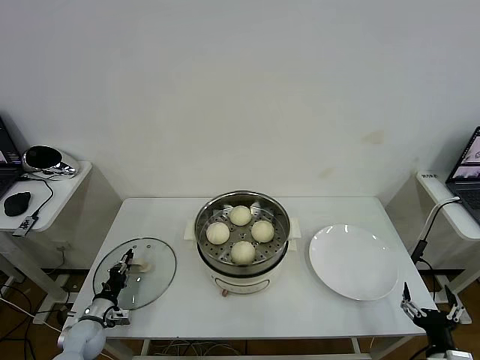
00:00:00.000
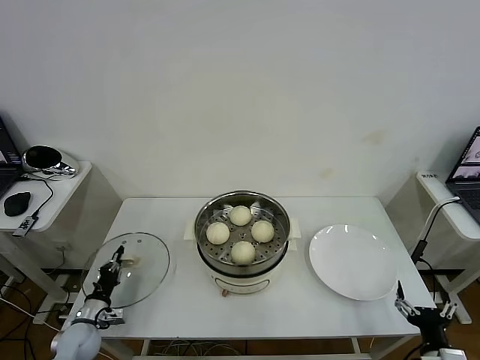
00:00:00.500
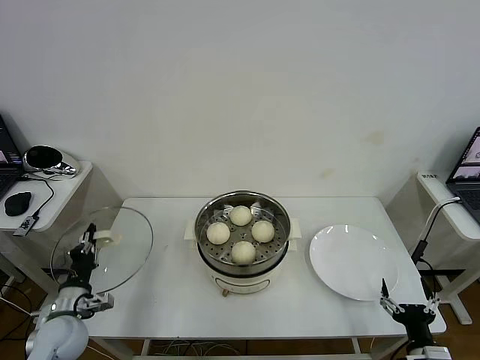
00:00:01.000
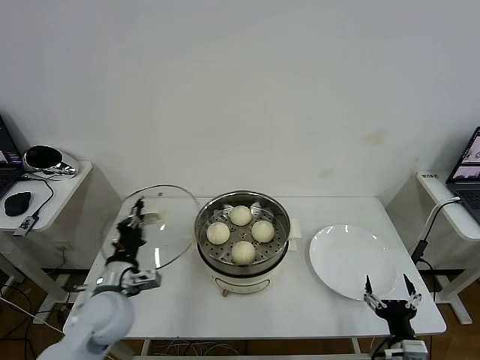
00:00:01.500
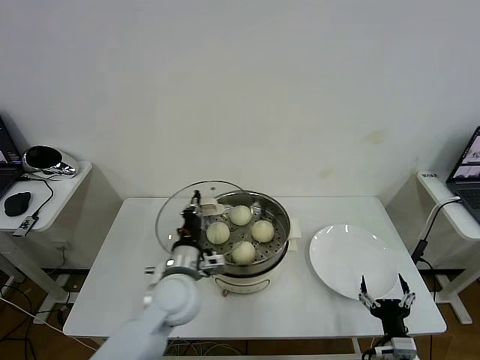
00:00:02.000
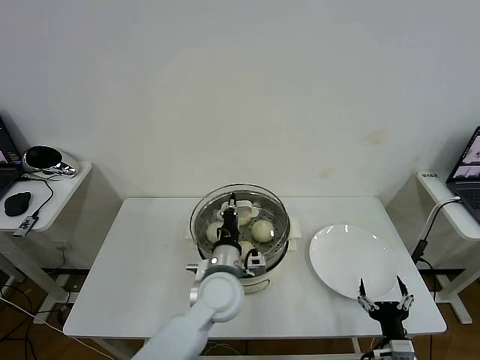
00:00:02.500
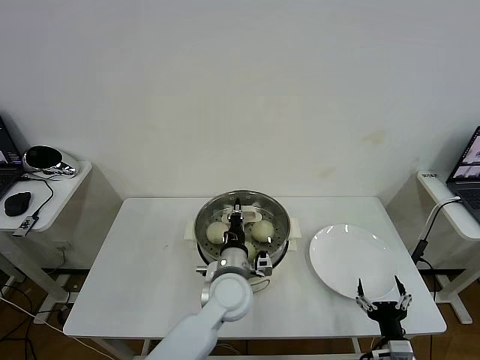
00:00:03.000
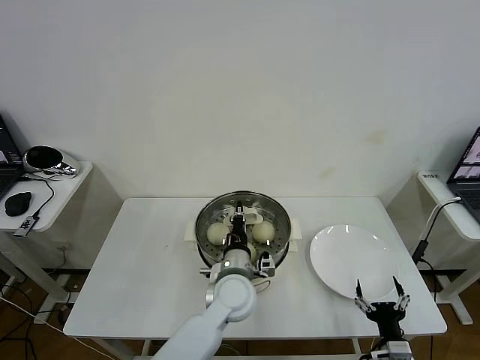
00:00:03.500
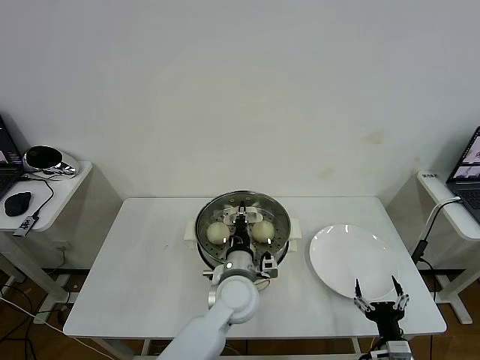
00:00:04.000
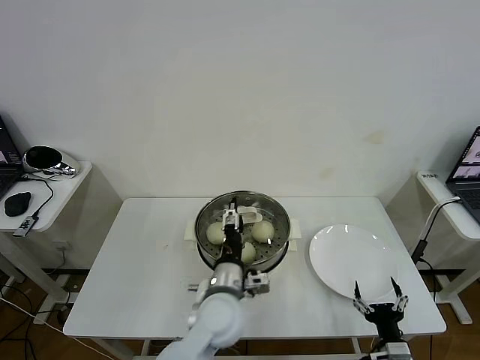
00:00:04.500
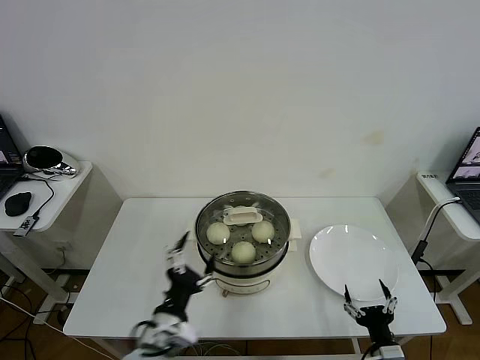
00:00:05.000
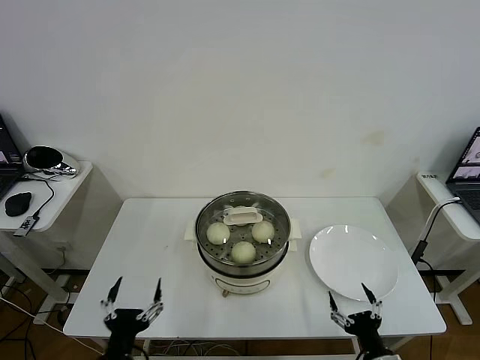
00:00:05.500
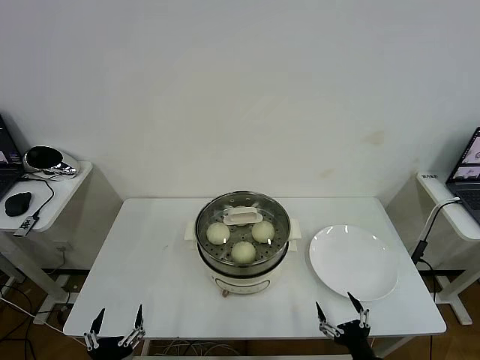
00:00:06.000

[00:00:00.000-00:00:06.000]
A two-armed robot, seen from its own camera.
Task of the whole recording: take steamed baozi put them in steamer then cover it.
Step, 00:00:00.500 to 00:00:04.500: Place the pot lid on the steamer with left gripper.
00:00:00.000 to 00:00:02.000: The left gripper heads to the right and upward, covering roughly 35 cm. Meanwhile the right gripper goes roughly 5 cm to the left.
00:00:02.000 to 00:00:04.000: The left gripper heads to the right, covering about 15 cm.
00:00:04.000 to 00:00:06.000: The left gripper goes roughly 35 cm to the left and backward, and opens up.

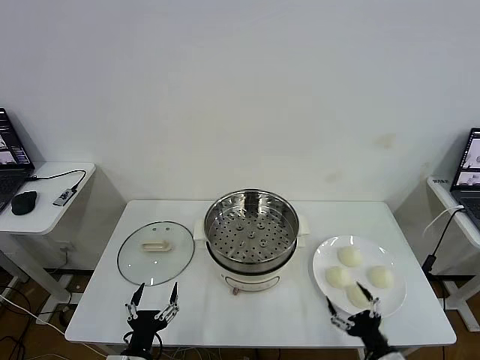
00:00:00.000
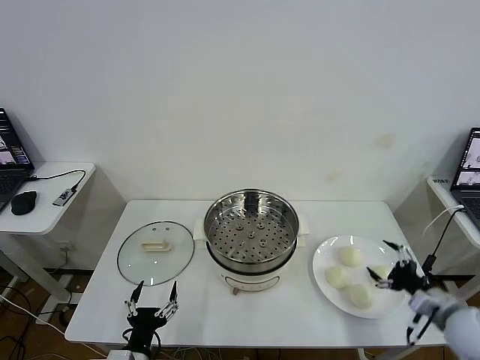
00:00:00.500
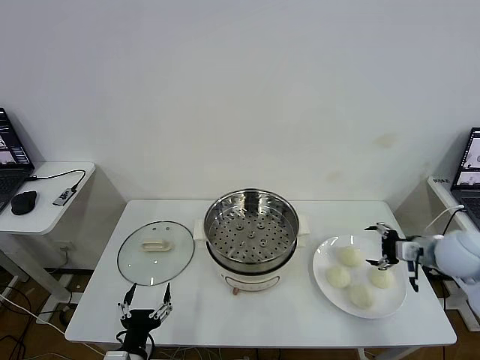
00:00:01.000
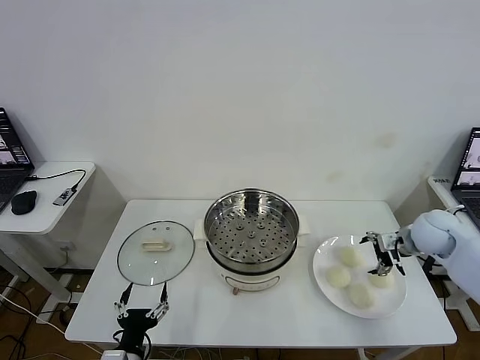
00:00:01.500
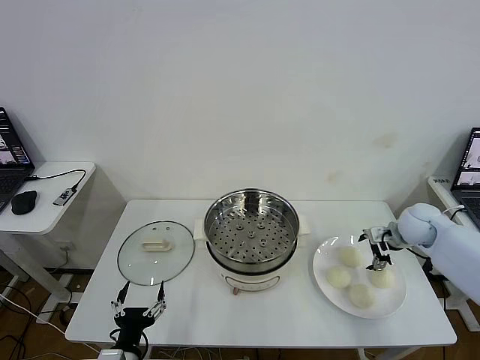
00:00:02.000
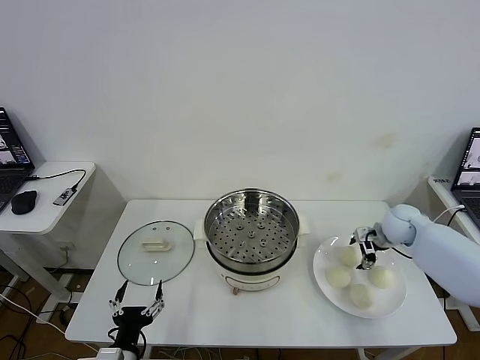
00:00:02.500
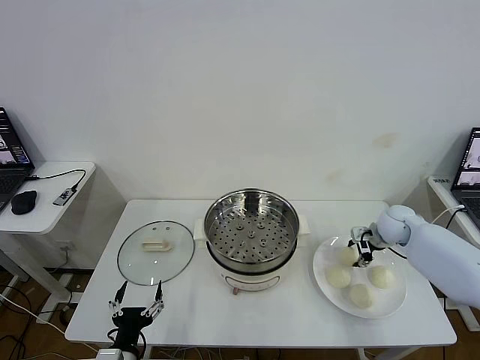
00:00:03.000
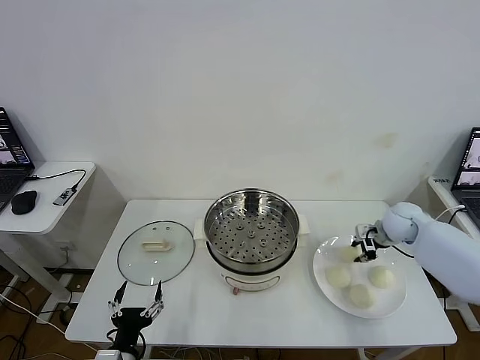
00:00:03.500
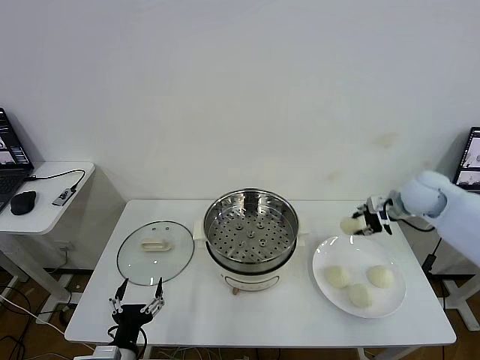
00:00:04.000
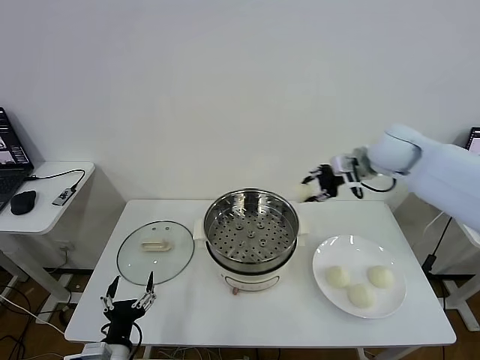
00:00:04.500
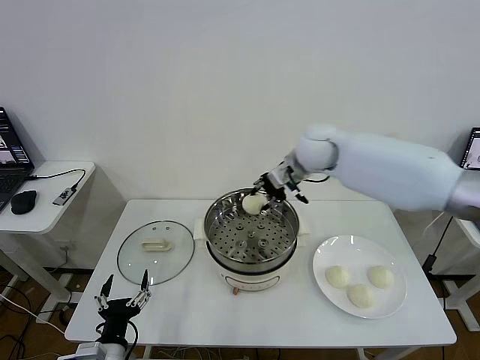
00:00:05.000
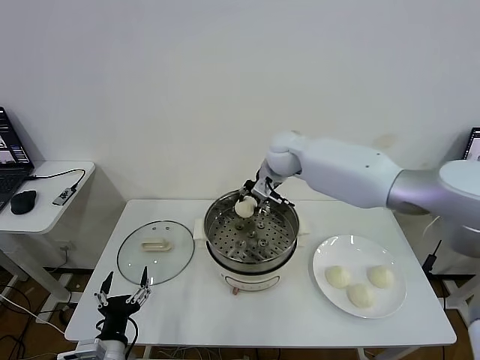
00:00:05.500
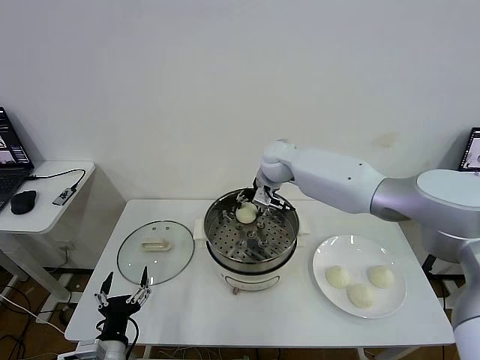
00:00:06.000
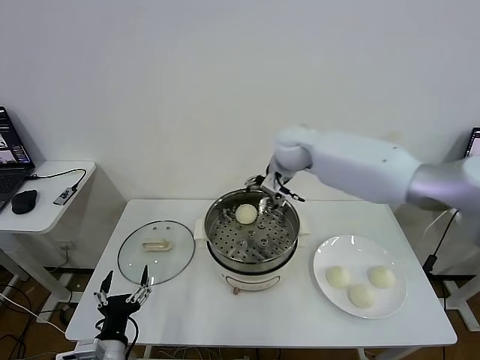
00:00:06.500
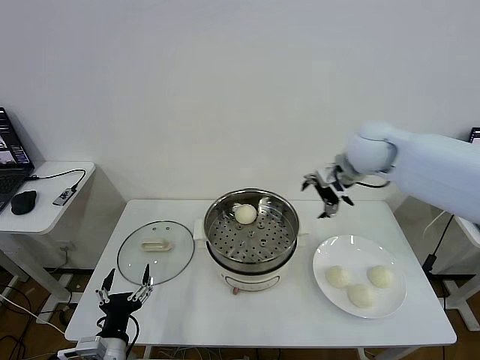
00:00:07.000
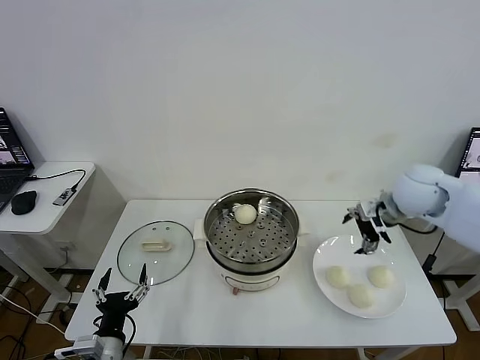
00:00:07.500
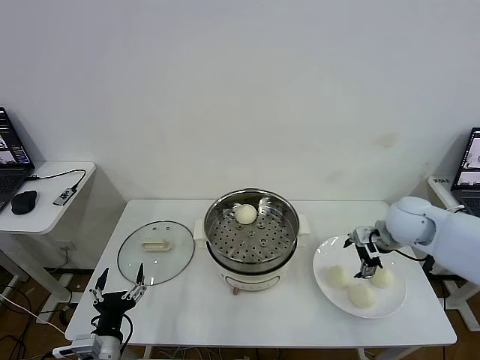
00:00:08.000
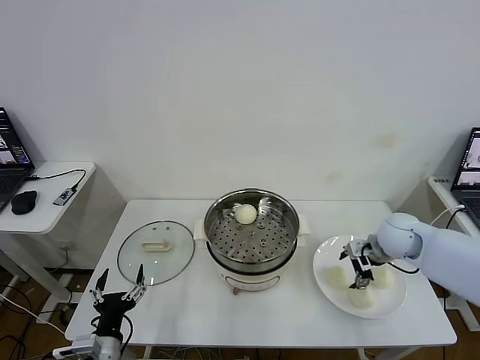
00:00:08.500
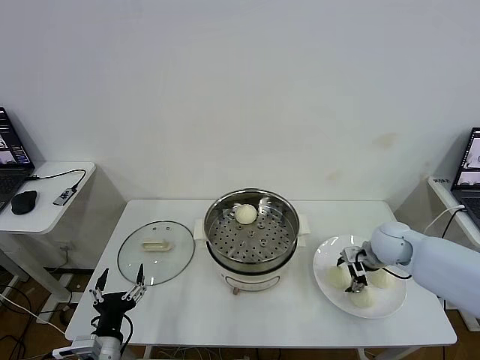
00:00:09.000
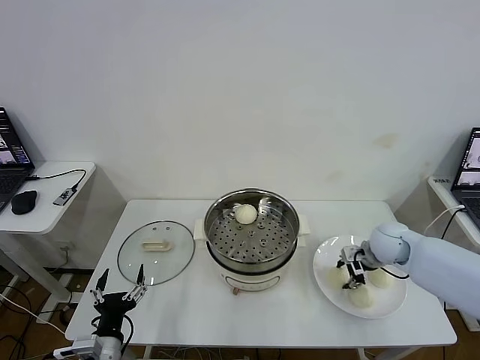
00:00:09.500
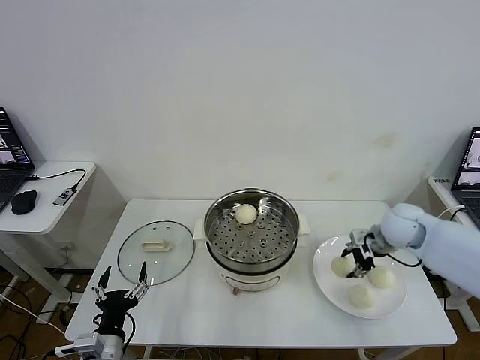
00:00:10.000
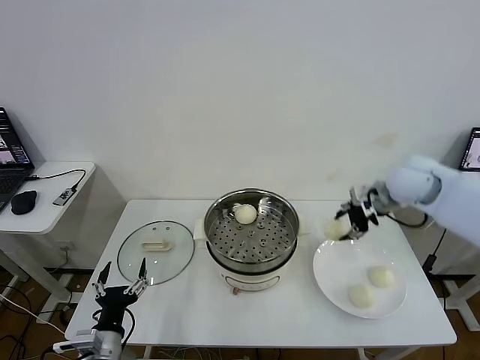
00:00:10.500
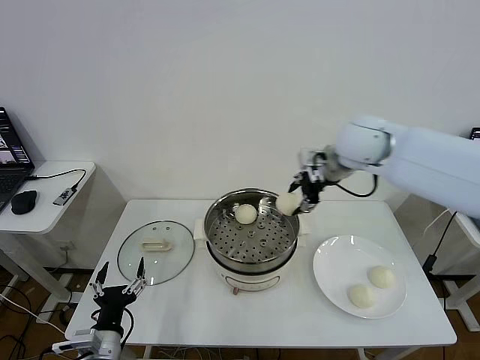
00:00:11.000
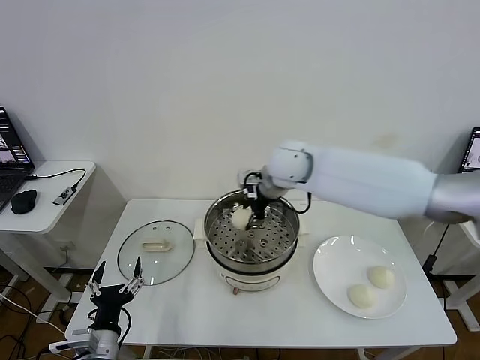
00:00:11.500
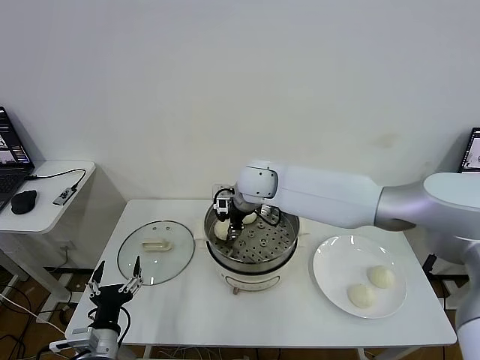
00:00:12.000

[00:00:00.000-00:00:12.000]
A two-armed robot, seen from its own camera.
Task of the whole recording: take steamed baozi put them in steamer then cover it.
Step, 00:00:00.000 to 00:00:03.000: Grasp the baozi in the plate with right gripper.
Step, 00:00:03.500 to 00:00:06.000: Place the baozi on the steamer with right gripper.
Step, 00:00:06.500 to 00:00:09.500: Grasp the baozi in the plate with right gripper.
00:00:02.000 to 00:00:04.000: The right gripper goes some 15 cm upward, and closes its fingers.
00:00:04.000 to 00:00:06.000: The right gripper is displaced to the left by approximately 30 cm, and opens up.
00:00:06.000 to 00:00:08.000: The right gripper is displaced to the right and backward by about 30 cm.
00:00:08.000 to 00:00:10.000: The right gripper travels downward and back again, approximately 10 cm each way, and closes.
00:00:10.000 to 00:00:12.000: The right gripper is displaced to the left by some 35 cm.

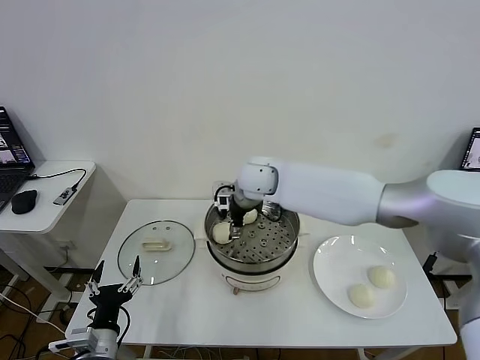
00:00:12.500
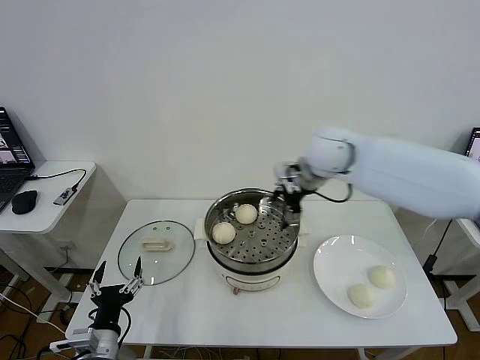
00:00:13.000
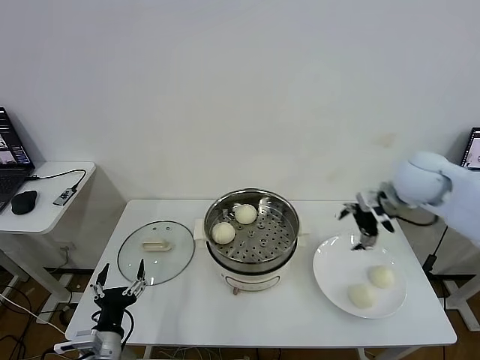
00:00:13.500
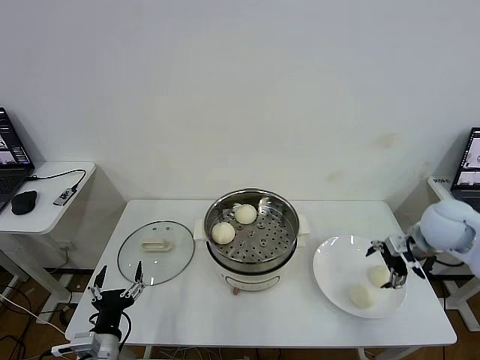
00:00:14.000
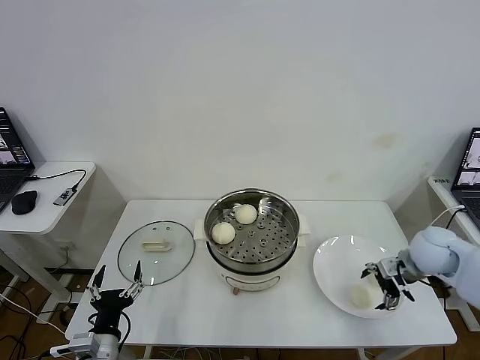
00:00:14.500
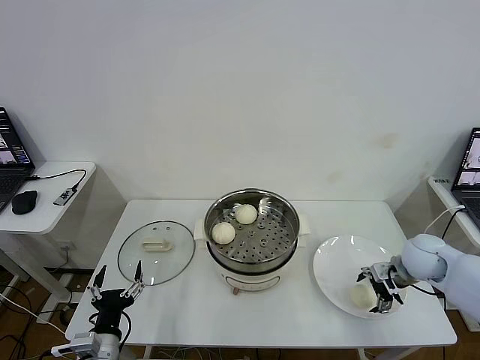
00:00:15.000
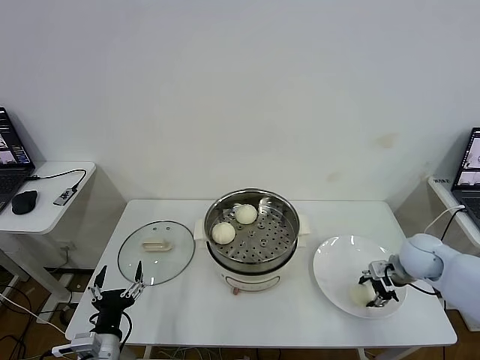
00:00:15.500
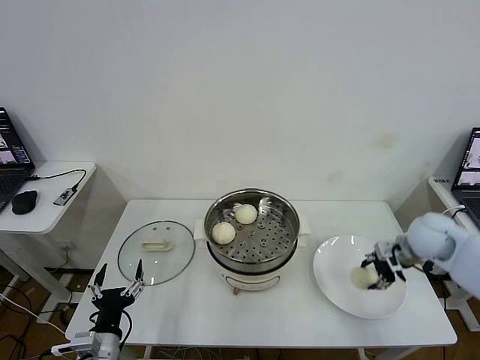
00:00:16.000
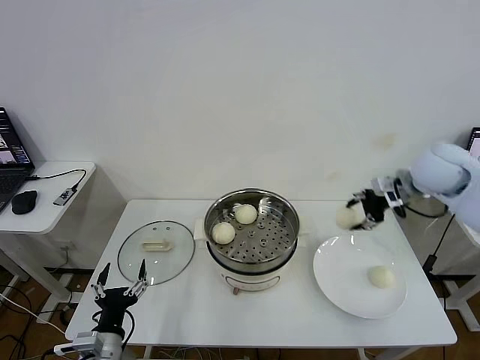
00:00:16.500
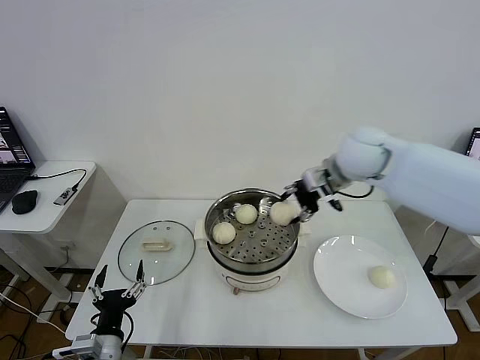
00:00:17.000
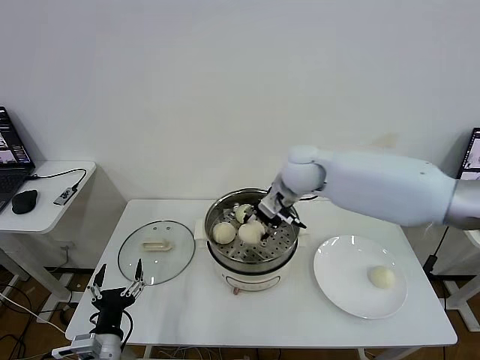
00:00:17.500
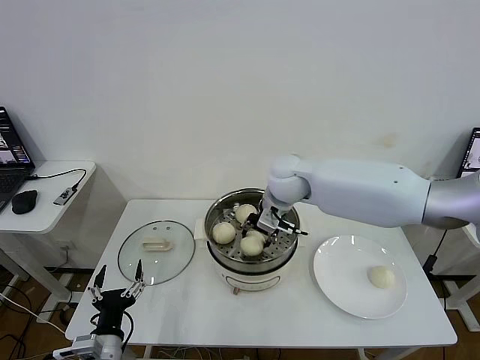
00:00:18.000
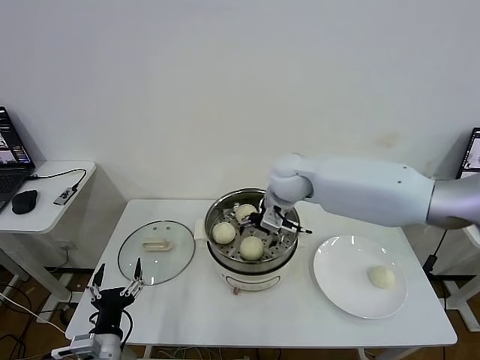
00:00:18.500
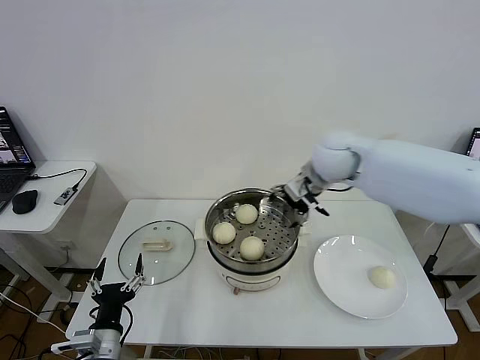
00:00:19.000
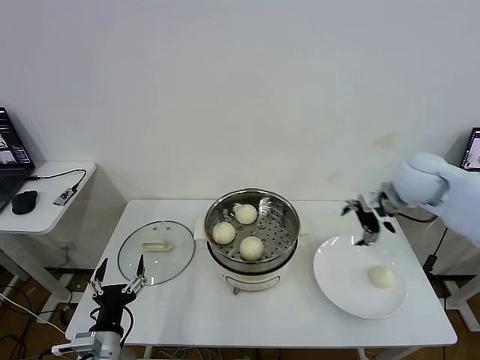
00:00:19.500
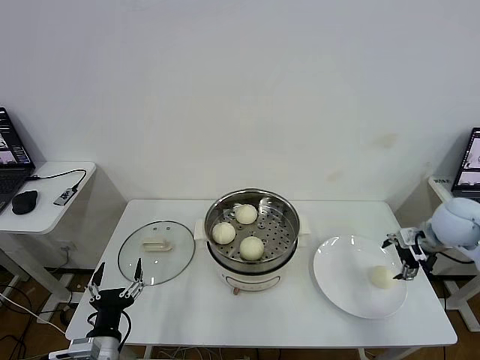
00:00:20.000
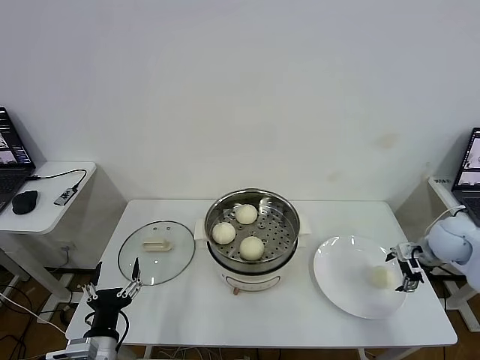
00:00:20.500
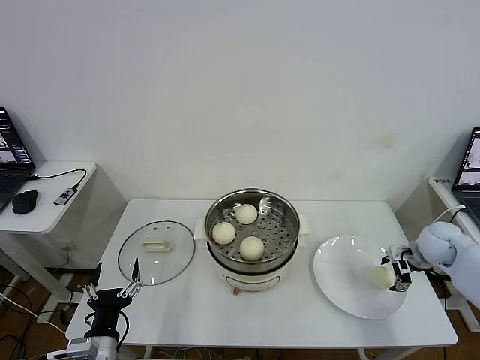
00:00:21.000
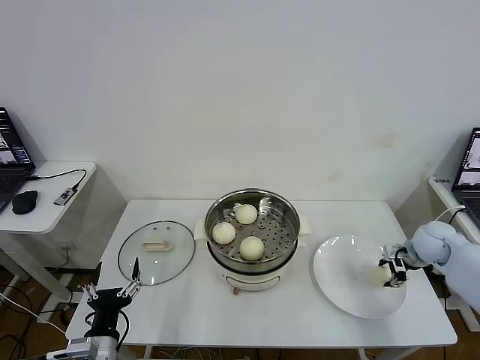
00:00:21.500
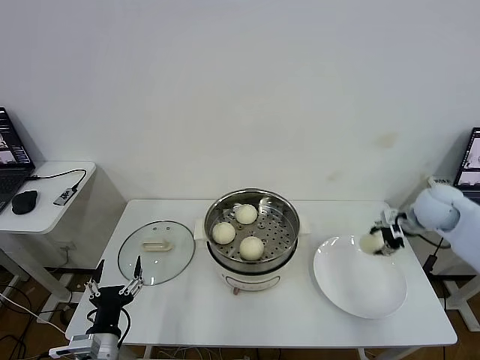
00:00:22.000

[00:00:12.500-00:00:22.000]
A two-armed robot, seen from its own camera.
Task of the whole recording: take steamed baozi put them in steamer then cover it.
Step, 00:00:13.000 to 00:00:15.500: Grasp the baozi in the plate with right gripper.
Step, 00:00:16.000 to 00:00:18.500: Place the baozi on the steamer with right gripper.
Step, 00:00:19.000 to 00:00:21.000: Grasp the baozi in the plate with right gripper.
00:00:12.500 to 00:00:14.500: The right gripper travels to the right by approximately 35 cm.
00:00:14.500 to 00:00:16.500: The right gripper goes some 20 cm upward and forward, and closes up.
00:00:16.500 to 00:00:18.000: The right gripper moves to the left, about 25 cm.
00:00:18.000 to 00:00:20.000: The right gripper shifts approximately 35 cm to the right, and opens its fingers.
00:00:20.000 to 00:00:22.000: The right gripper is displaced forward by about 5 cm, goes downward and returns, approximately 10 cm each way, and closes.
